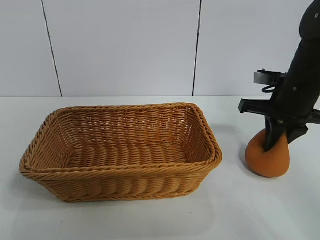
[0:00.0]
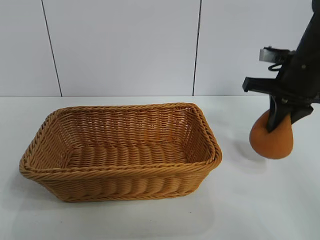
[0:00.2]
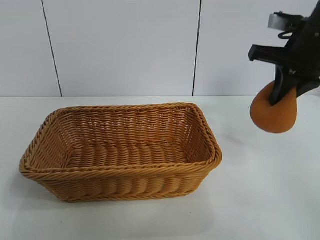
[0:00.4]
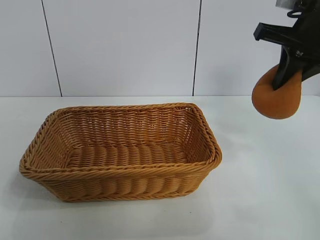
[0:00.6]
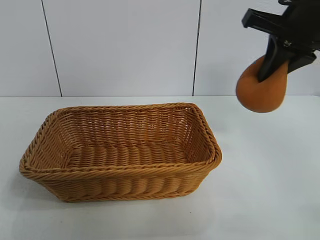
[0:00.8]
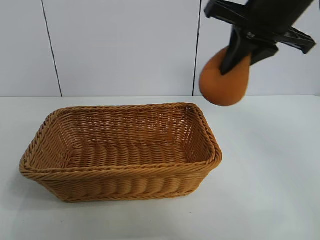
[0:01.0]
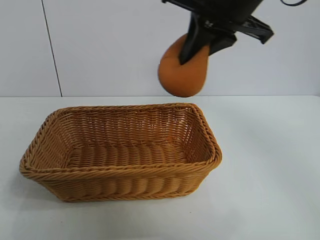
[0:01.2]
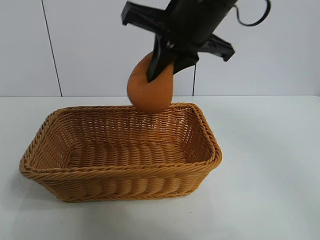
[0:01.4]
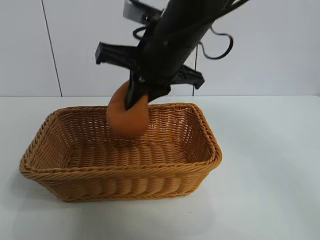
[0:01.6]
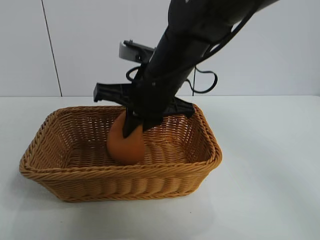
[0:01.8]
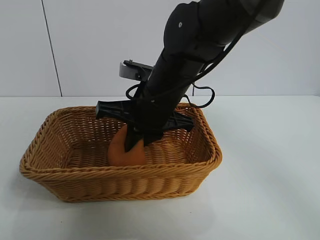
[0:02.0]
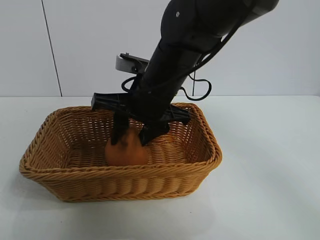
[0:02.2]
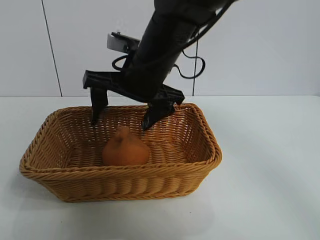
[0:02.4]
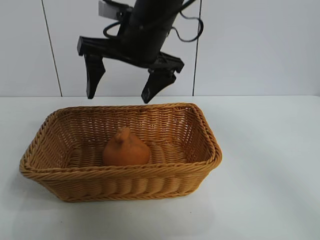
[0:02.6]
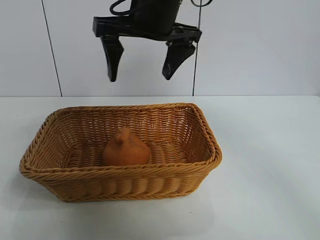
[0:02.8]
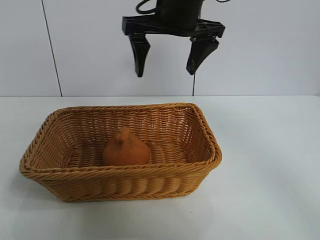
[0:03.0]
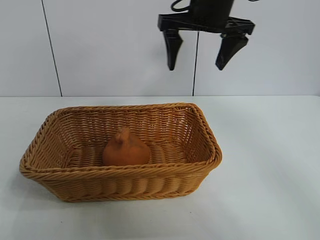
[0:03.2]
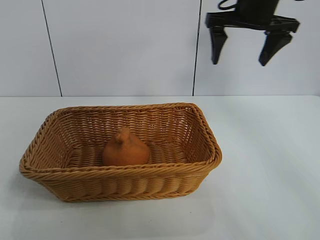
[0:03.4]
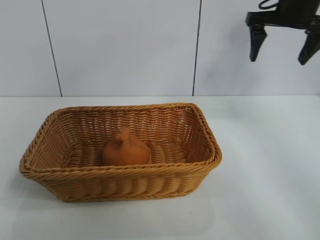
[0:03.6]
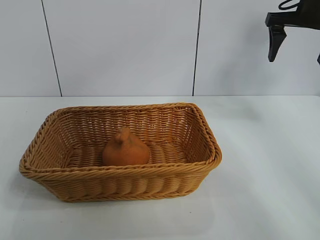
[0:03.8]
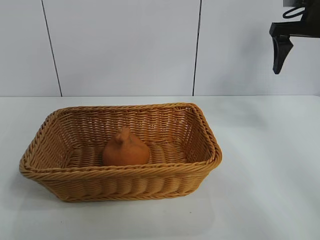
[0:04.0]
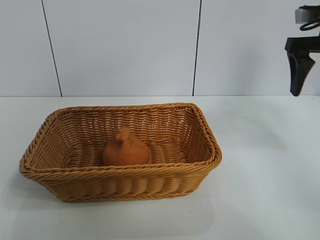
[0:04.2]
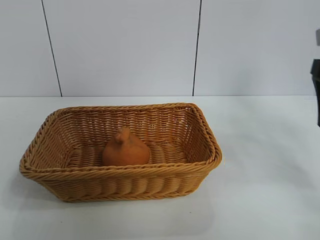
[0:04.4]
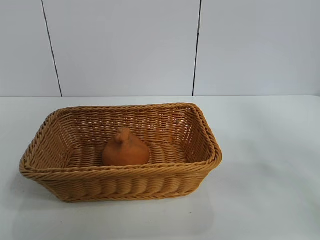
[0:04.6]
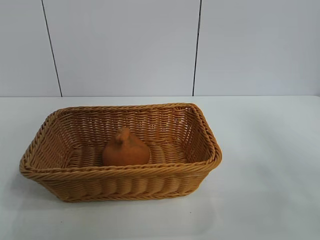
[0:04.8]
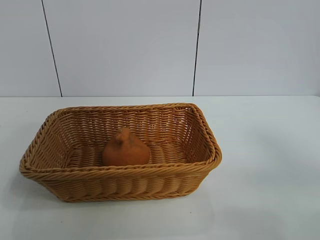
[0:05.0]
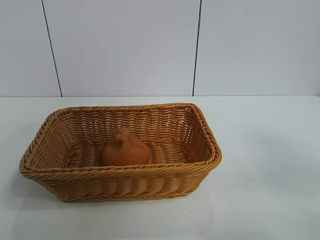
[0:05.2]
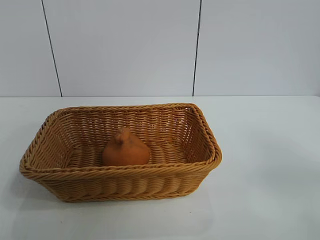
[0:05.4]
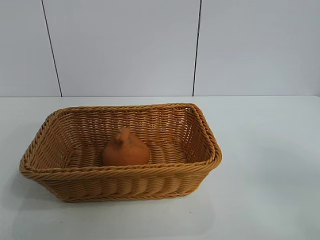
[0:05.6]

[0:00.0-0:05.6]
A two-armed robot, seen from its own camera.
Task of the whole recording: pick up the orange and put it into the basket.
Step, 0:00.2 to 0:02.2: Place the orange in the basket with right gripper.

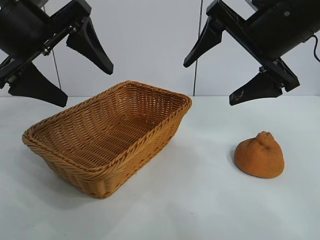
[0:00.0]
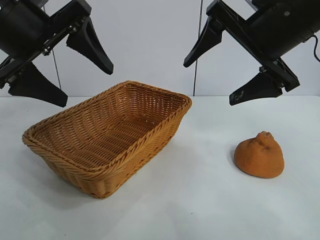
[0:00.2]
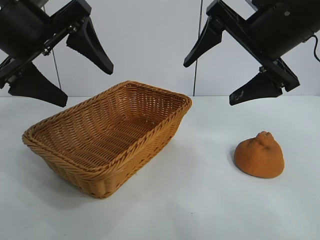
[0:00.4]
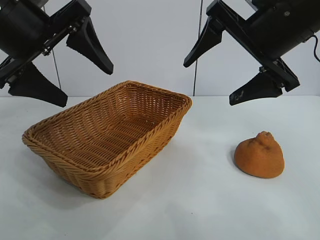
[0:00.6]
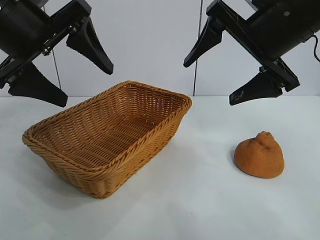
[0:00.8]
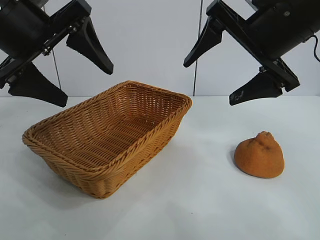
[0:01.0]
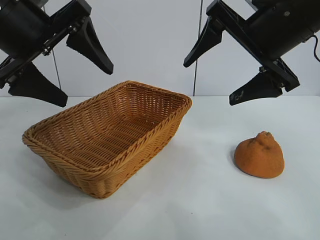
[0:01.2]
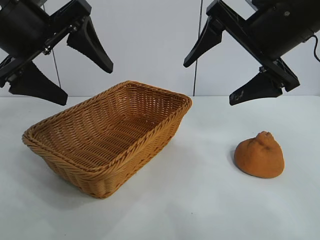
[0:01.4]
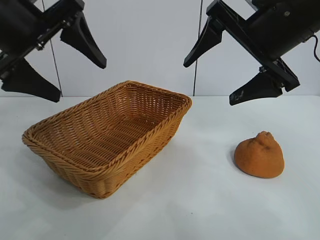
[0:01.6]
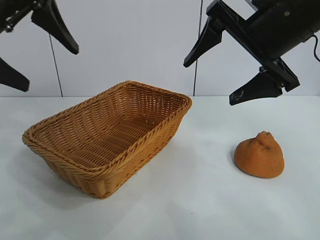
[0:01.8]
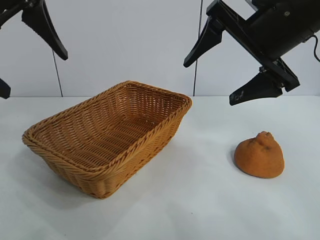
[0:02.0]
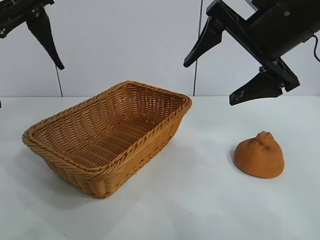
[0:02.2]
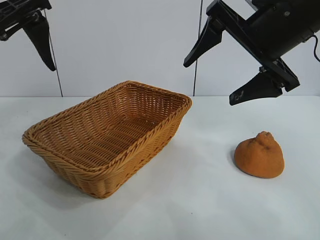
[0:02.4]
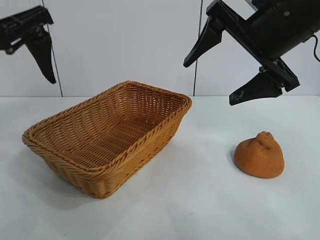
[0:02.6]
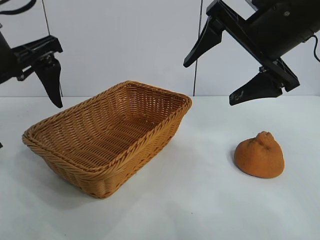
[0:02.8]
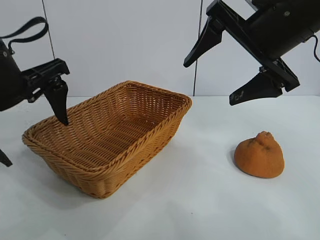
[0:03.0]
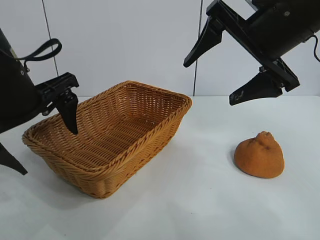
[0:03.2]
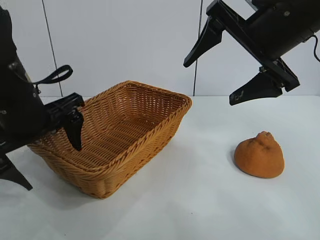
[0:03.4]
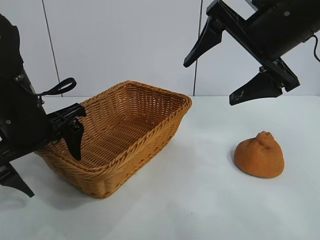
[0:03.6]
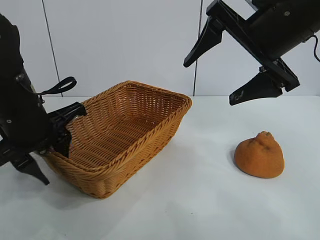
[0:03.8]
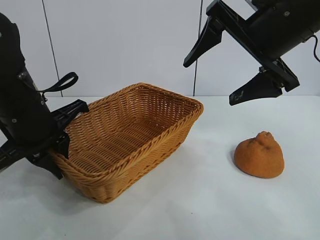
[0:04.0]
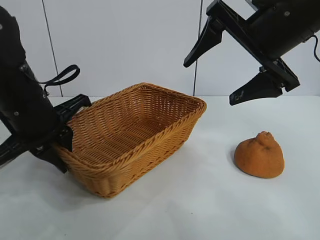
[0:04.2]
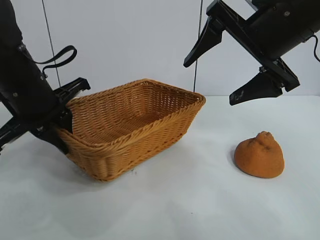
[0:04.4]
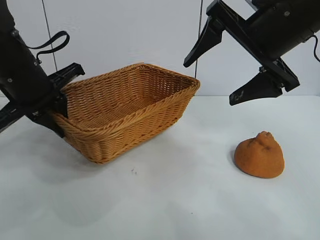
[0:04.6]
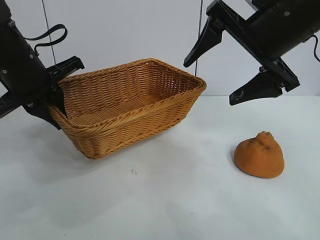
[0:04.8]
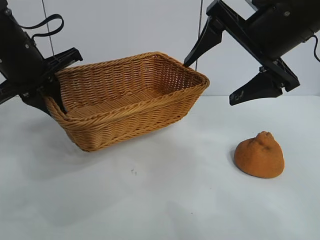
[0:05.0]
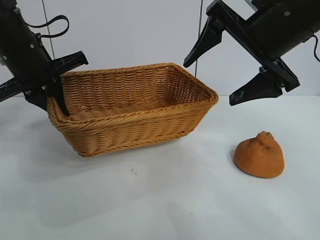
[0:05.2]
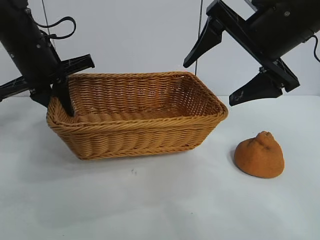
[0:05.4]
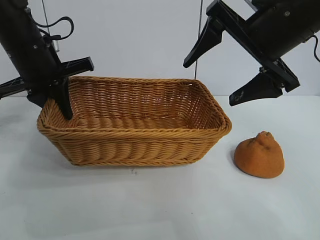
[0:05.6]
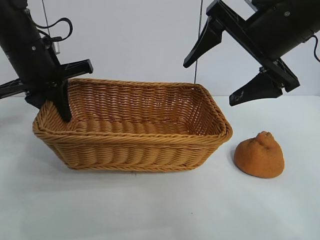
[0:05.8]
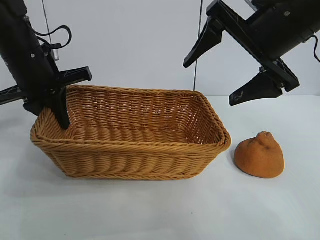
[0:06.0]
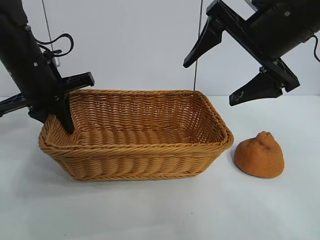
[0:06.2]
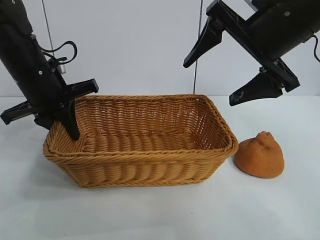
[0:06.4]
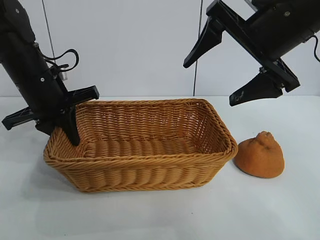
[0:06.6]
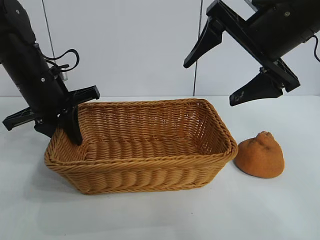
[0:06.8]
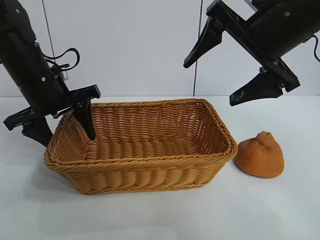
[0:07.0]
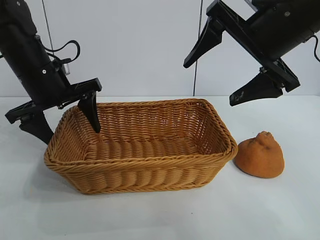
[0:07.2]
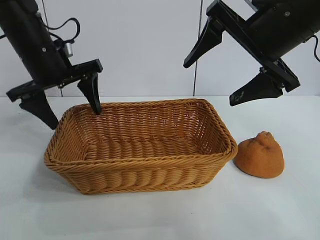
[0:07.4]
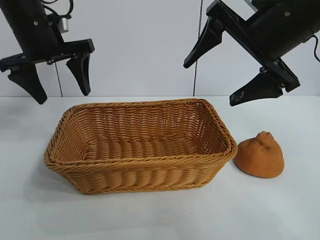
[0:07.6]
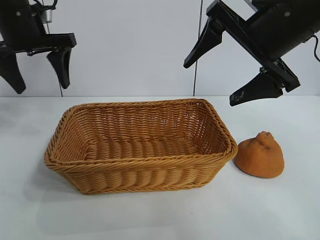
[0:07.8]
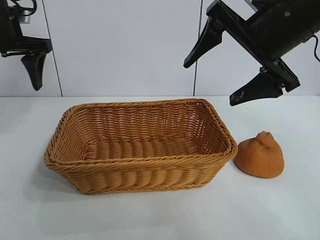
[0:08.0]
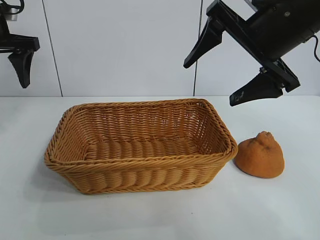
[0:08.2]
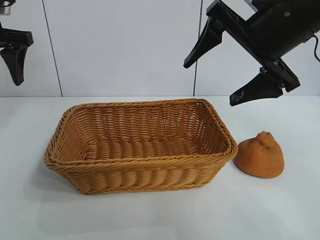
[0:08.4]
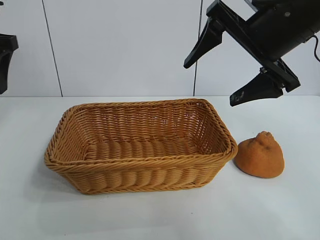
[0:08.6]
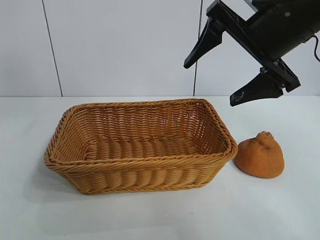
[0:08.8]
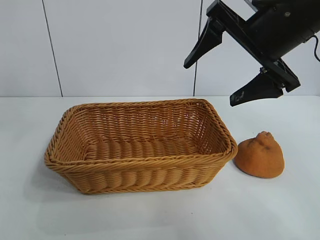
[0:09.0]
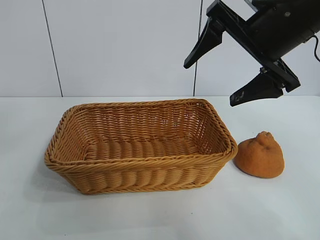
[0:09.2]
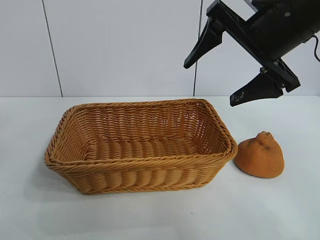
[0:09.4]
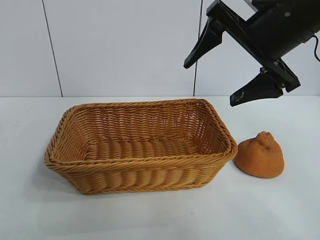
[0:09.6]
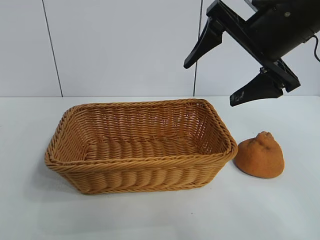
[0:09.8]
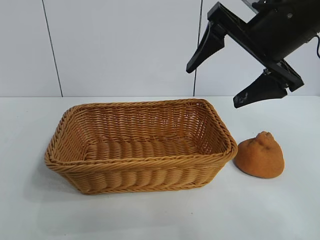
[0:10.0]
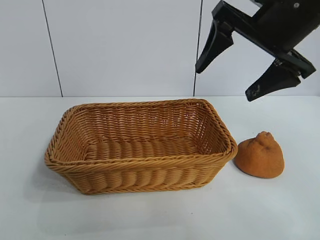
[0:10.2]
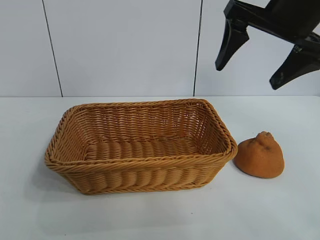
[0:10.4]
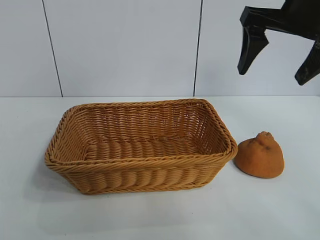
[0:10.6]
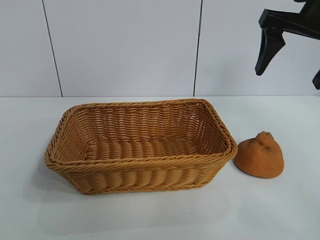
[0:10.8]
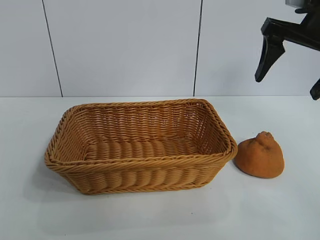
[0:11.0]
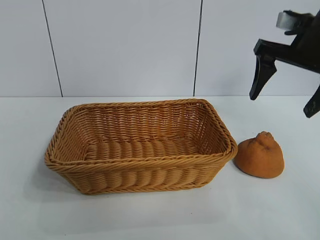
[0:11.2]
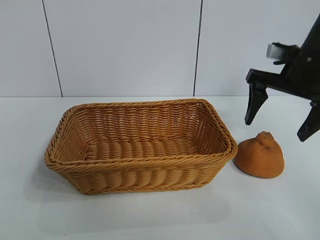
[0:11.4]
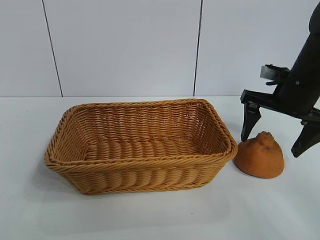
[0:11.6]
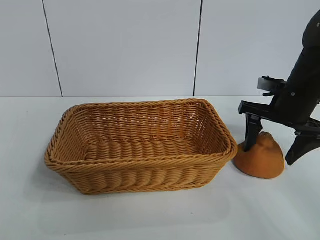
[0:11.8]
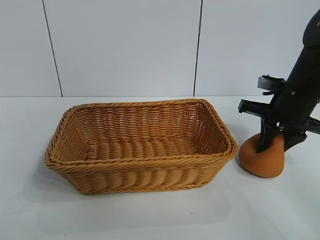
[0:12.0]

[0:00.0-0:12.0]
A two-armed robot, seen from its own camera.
Task of the whole recording: pick up the orange and put it into the basket.
Step, 0:01.4 to 0:04.2: Grasp the basket with left gripper.
Step, 0:04.4 to 0:07.6: Place the basket in the center of view with left gripper.

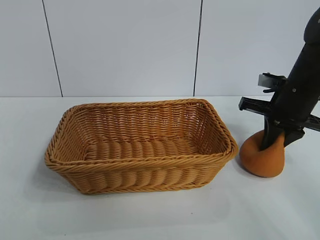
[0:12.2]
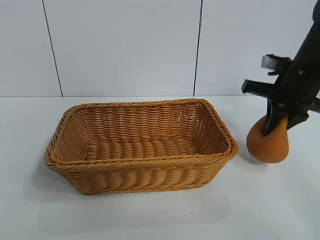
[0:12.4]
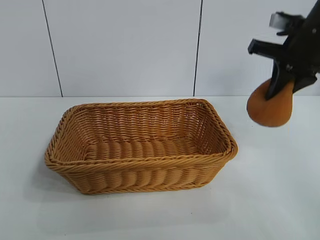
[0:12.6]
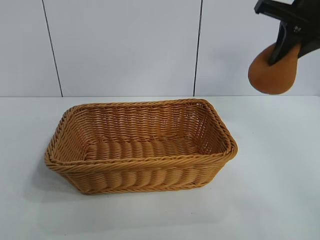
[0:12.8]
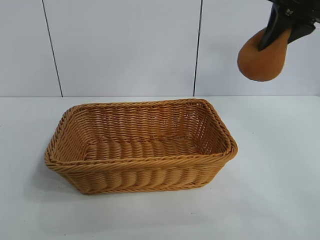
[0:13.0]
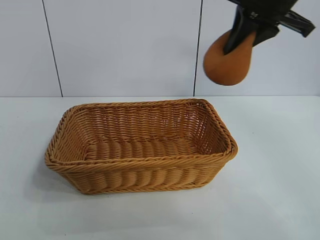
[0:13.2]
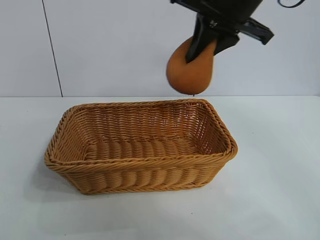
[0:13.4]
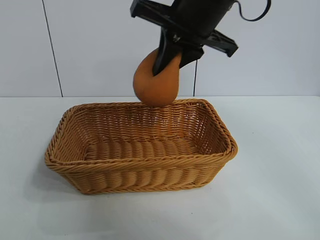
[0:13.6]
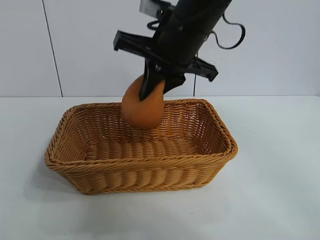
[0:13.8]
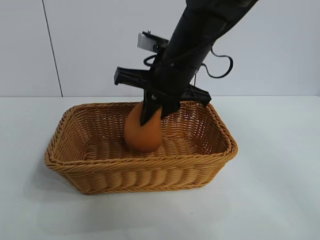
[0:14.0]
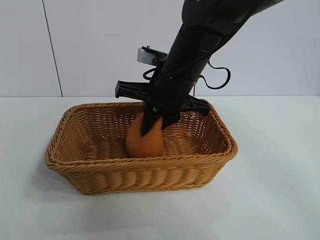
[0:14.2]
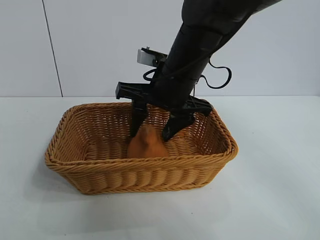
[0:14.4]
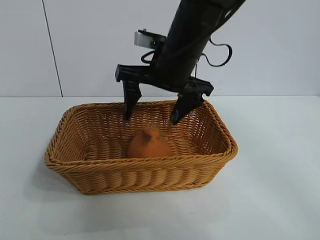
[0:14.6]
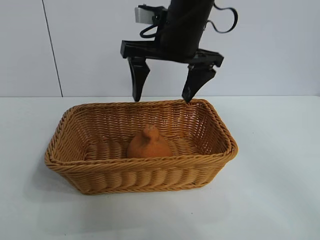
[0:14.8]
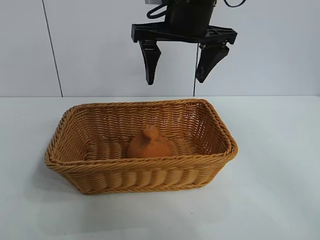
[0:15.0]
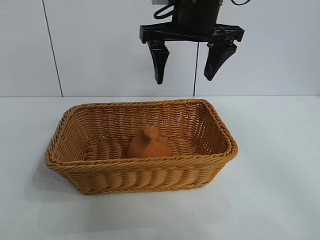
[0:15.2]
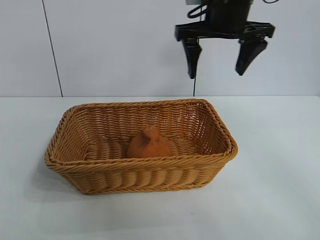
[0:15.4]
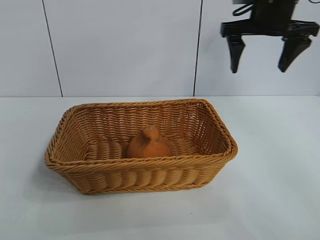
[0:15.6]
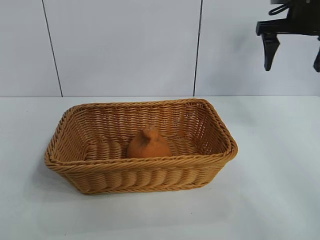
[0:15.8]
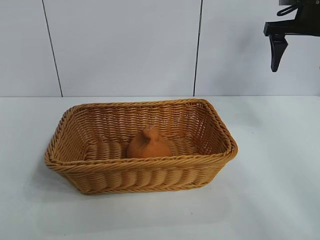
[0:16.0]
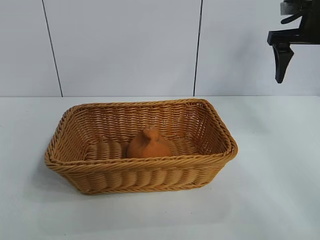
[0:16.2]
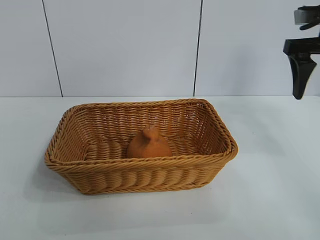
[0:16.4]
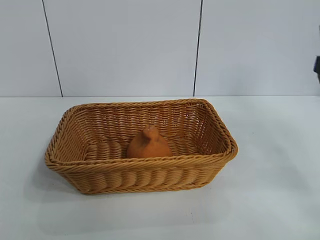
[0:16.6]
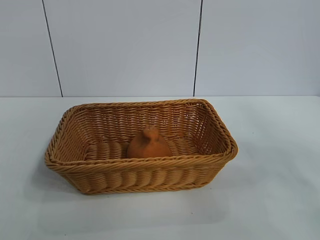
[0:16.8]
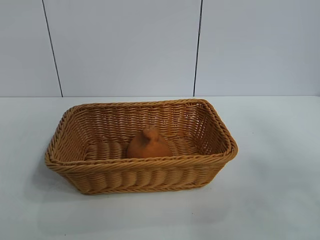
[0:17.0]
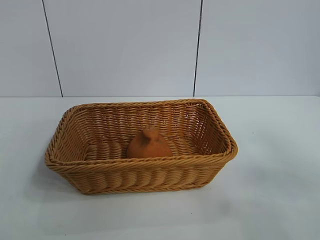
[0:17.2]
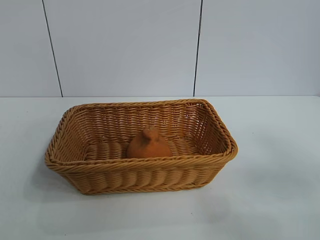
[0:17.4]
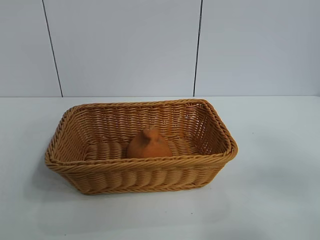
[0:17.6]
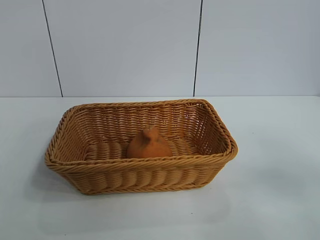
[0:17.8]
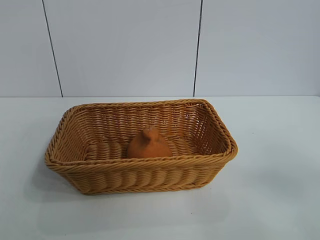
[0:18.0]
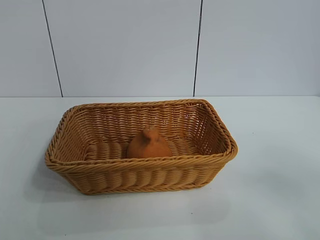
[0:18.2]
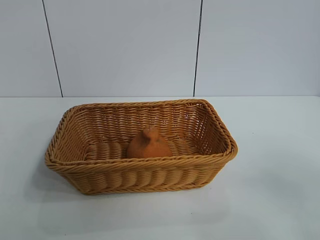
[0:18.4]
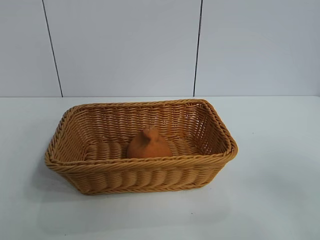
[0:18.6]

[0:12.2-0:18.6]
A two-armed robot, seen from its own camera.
Task of the whole recording: pick up the orange and put it into the basket.
Step, 0:12.2 to 0:14.6: Place the orange in the basket with right gripper.
